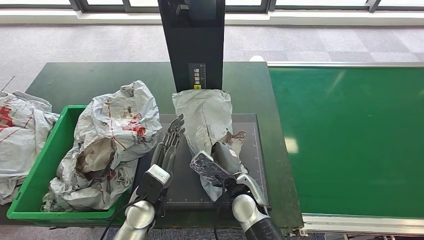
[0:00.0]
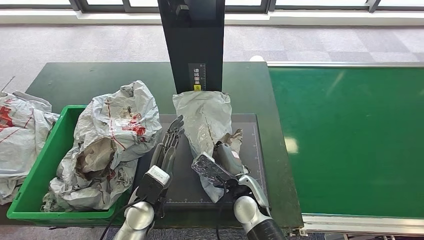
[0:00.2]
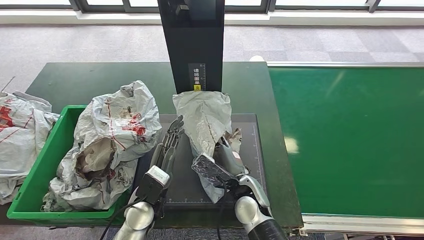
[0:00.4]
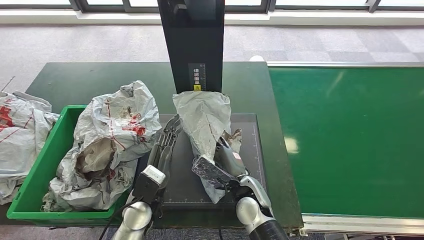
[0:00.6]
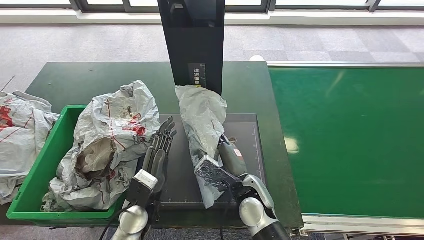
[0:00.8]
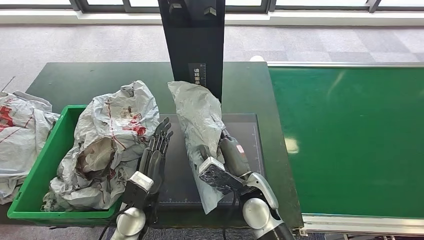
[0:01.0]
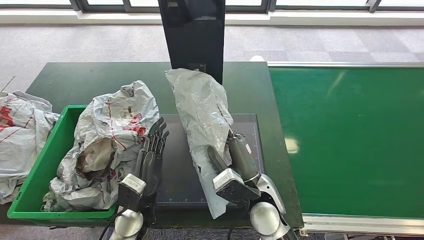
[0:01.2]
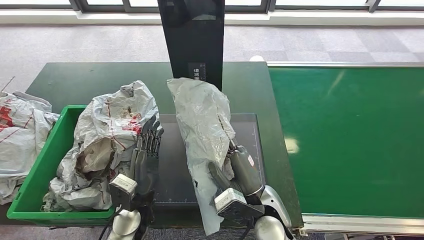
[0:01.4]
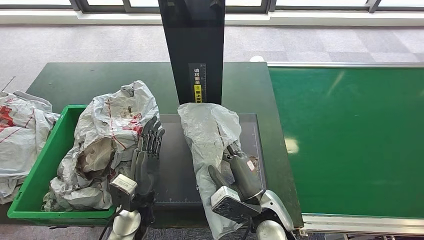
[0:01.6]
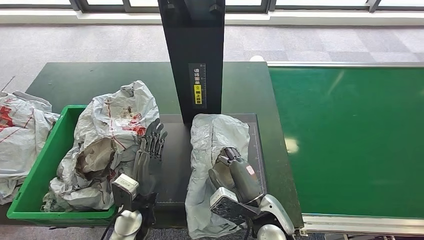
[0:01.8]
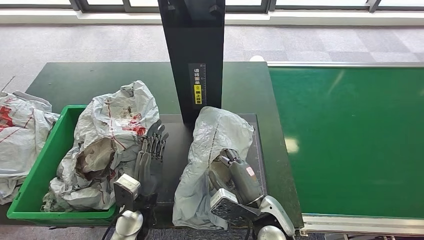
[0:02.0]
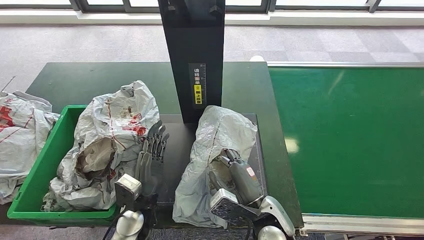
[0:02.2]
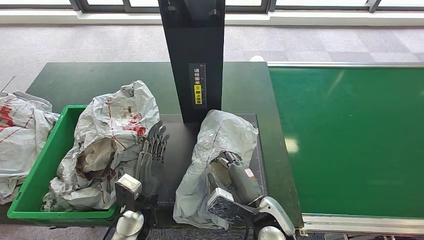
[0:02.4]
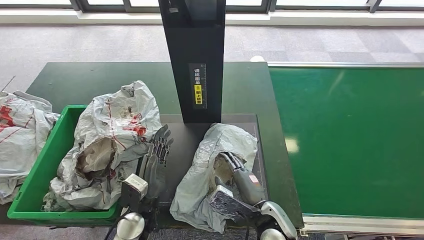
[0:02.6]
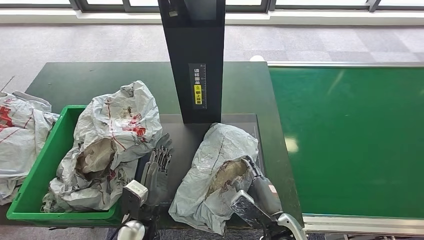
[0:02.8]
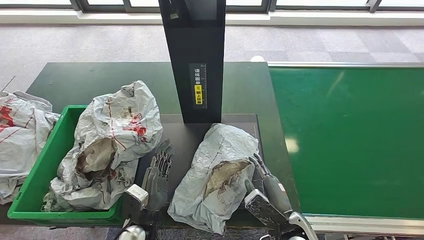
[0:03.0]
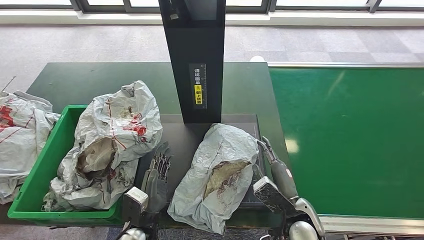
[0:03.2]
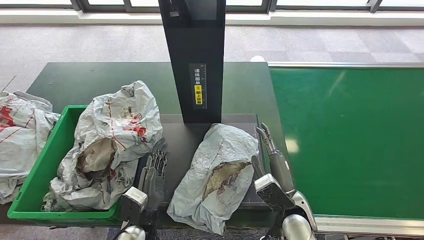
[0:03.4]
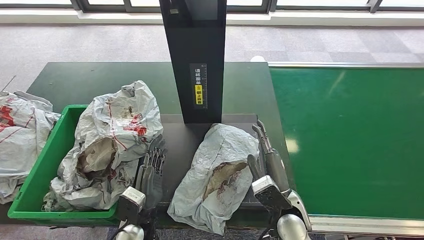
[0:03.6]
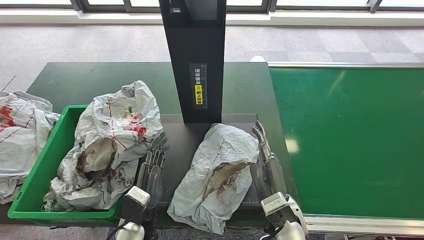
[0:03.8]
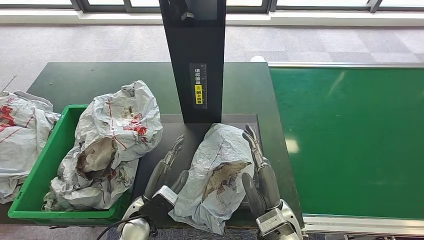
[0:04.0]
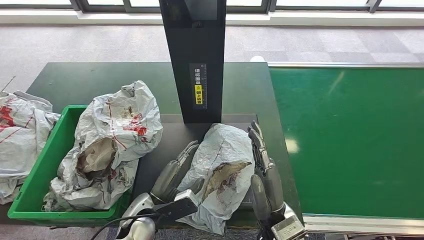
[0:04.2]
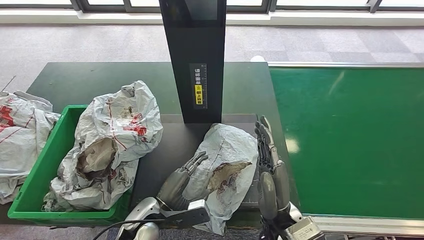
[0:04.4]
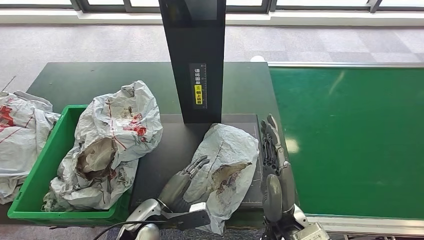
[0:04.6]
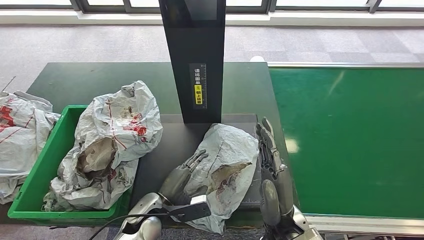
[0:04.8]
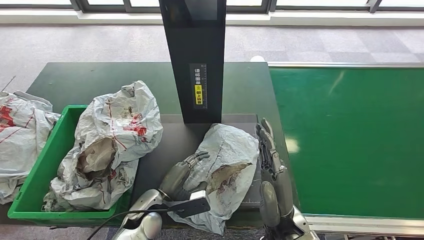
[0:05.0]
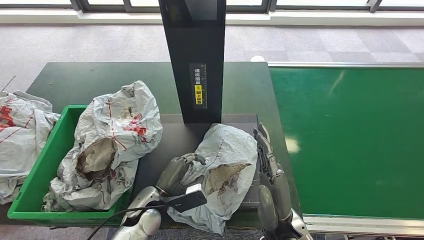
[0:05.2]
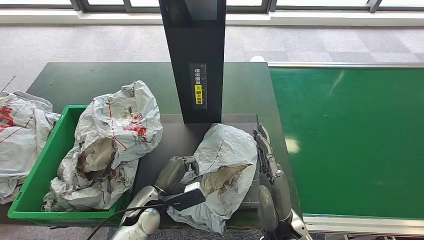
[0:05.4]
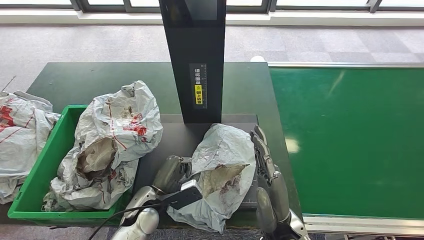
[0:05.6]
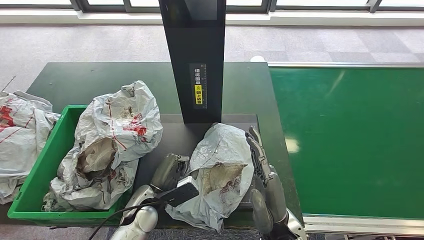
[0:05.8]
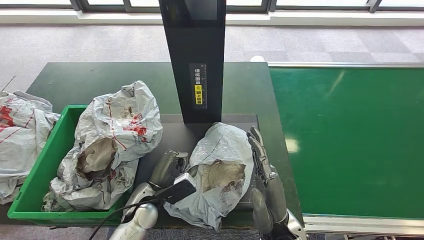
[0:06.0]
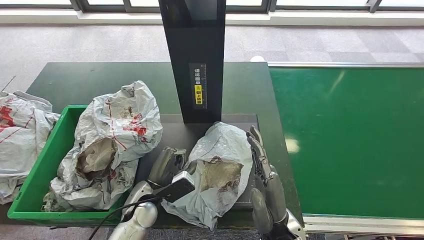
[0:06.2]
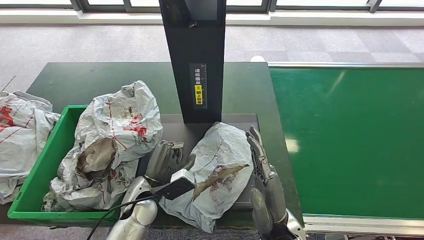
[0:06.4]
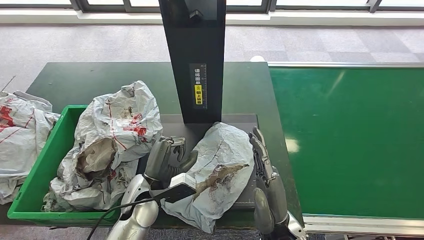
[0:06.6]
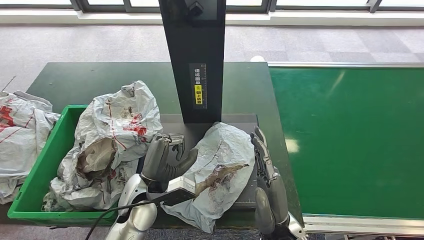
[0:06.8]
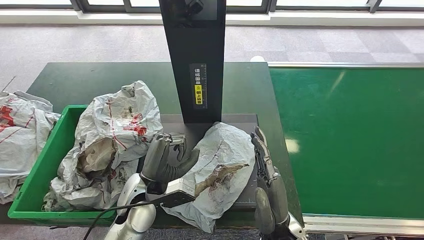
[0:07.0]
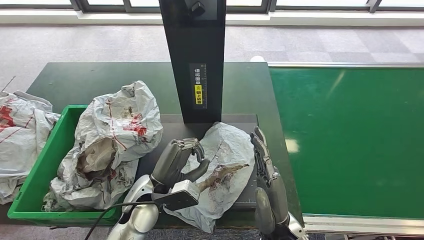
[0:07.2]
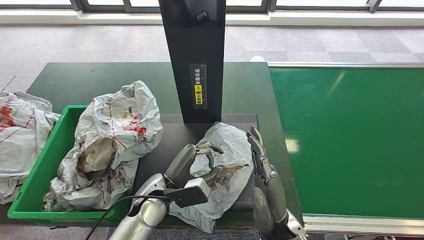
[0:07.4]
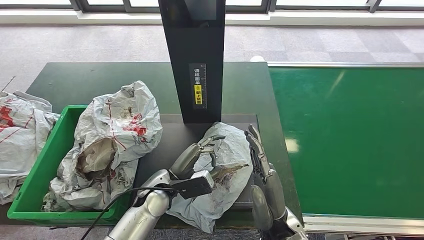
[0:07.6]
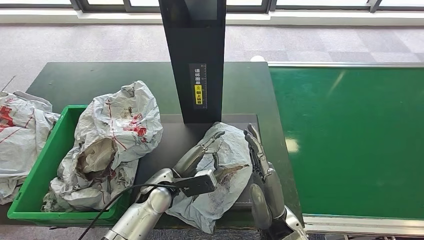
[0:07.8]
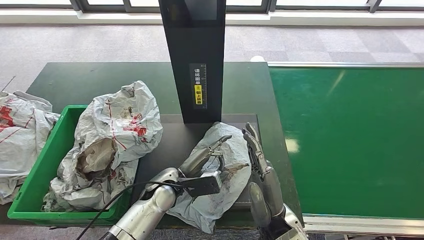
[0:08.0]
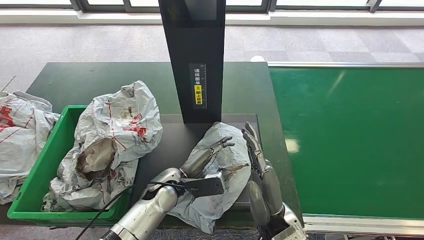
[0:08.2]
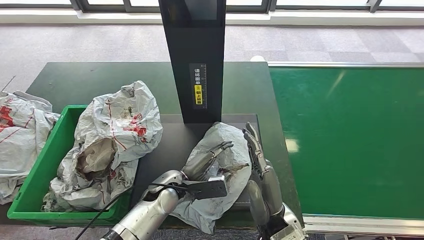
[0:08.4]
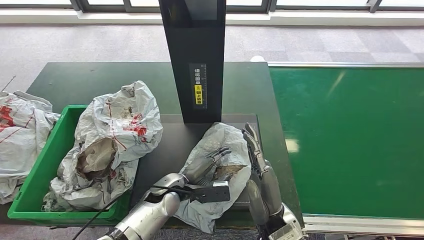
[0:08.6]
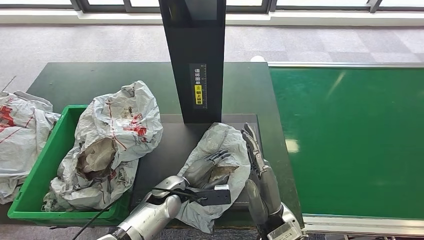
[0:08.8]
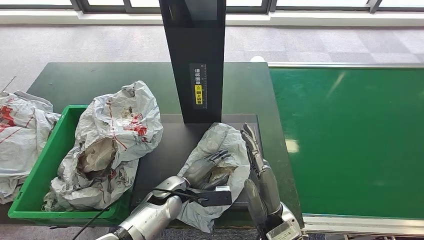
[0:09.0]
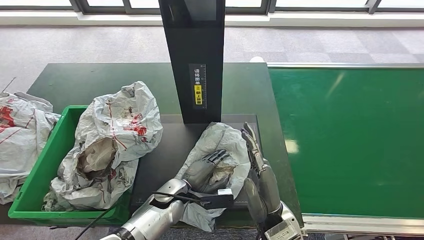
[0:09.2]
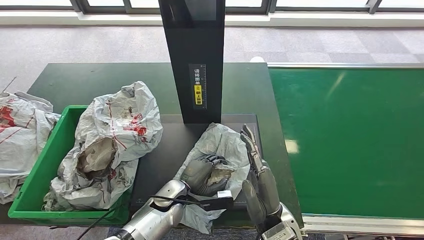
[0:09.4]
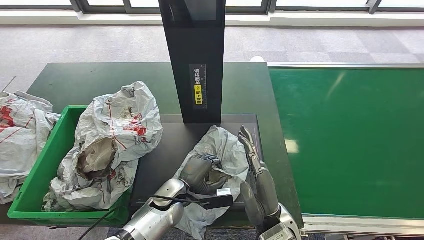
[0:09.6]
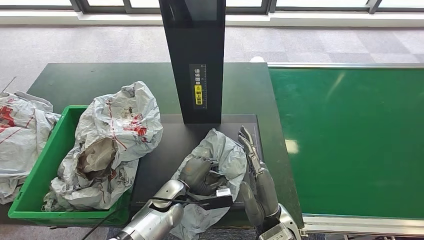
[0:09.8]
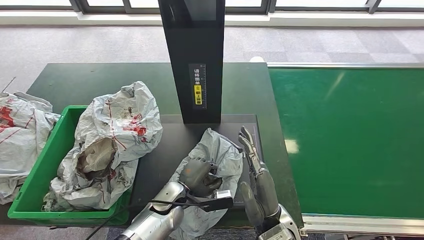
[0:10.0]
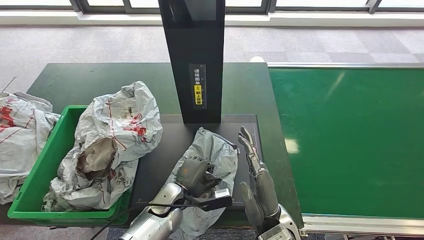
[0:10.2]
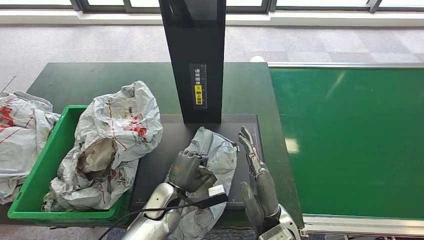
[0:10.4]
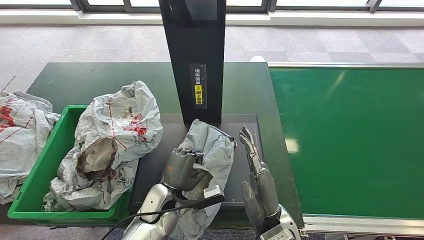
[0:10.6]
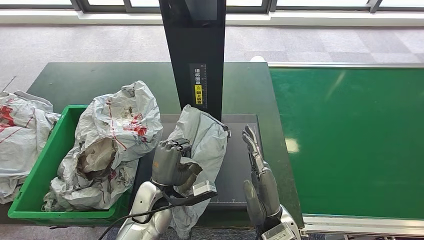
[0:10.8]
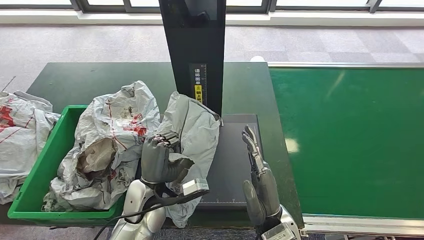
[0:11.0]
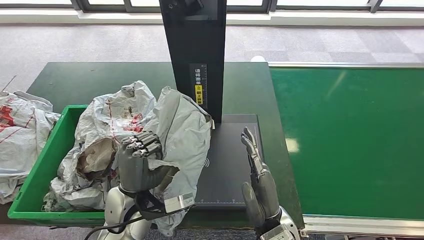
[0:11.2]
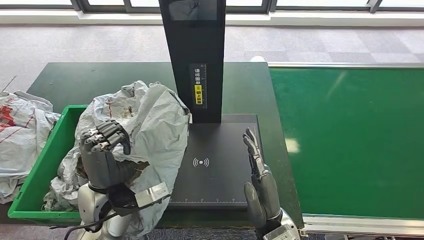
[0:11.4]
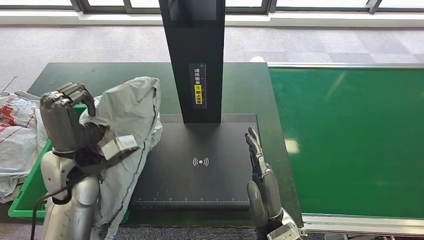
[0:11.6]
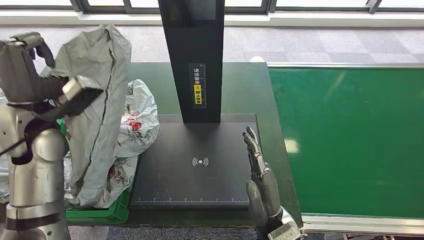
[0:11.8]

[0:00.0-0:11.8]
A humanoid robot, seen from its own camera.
Step, 0:00.0 to 0:03.4: Place the parcel onto the inbound machine.
Step, 0:03.6 to 0:10.8: Pick up the parcel from the inbound machine.
0:00.0 to 0:01.4: The right hand changes place by about 5 cm.
0:01.4 to 0:03.0: The right hand travels to the right and downward by approximately 10 cm; the left hand ends up some 5 cm from where it was.
0:03.0 to 0:04.4: The right hand shifts roughly 10 cm upward and to the left.
0:04.4 to 0:06.0: There are only small adjustments of the hands.
0:06.0 to 0:07.4: The left hand moves upward, about 5 cm.
0:07.4 to 0:08.8: The left hand heads downward, covering about 5 cm.

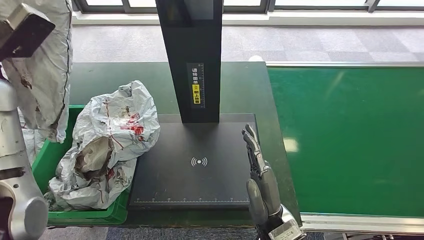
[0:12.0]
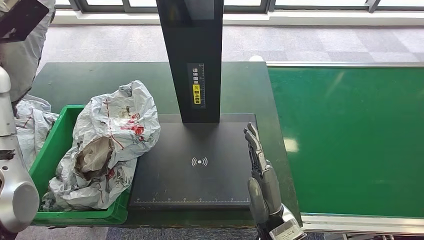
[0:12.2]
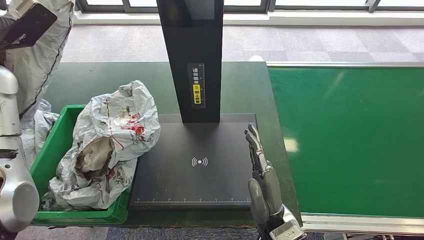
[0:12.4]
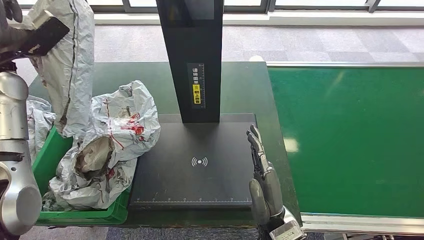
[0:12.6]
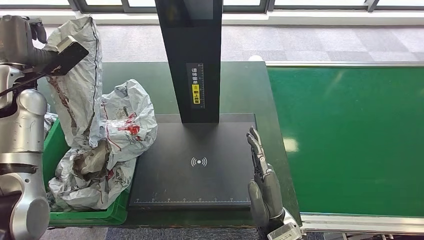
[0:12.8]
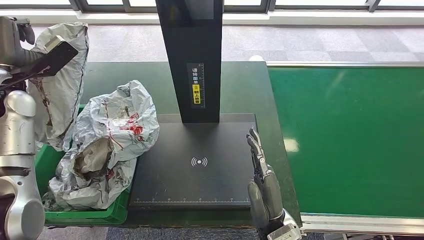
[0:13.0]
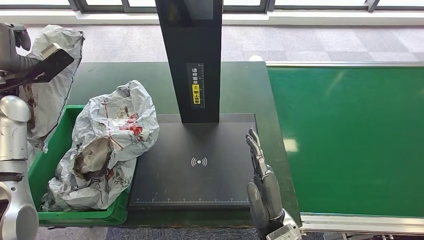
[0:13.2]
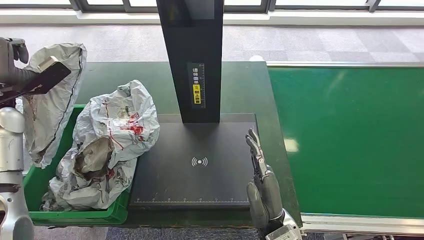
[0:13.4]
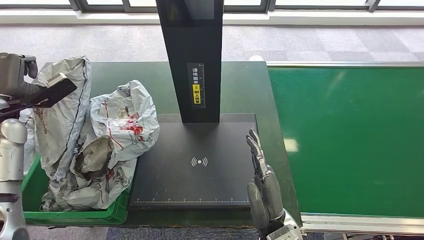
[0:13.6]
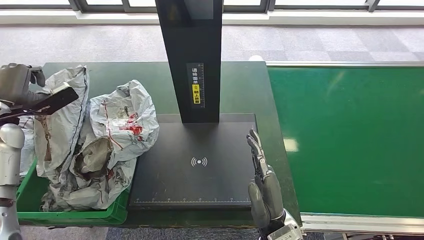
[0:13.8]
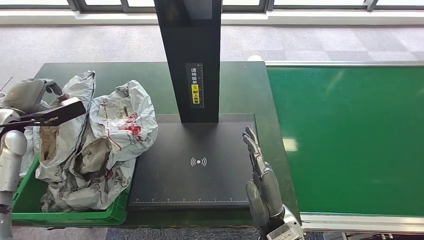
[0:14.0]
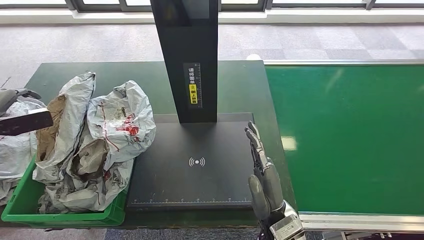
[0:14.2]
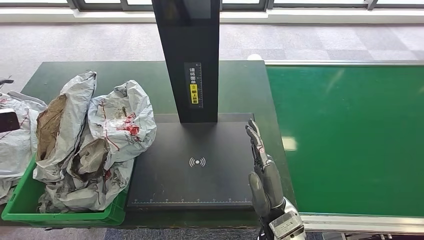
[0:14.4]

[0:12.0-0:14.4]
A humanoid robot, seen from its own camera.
Step, 0:12.0 to 0:14.4: Place the parcel into the delivery box.
0:12.0 to 0:13.2: The left hand moves downward, roughly 5 cm.
